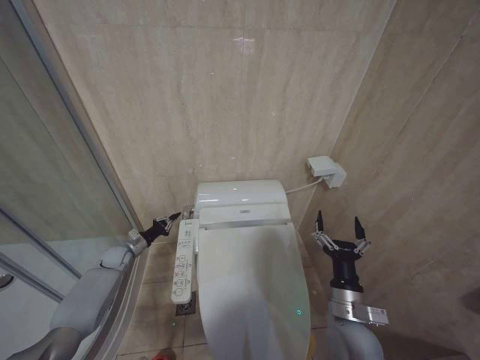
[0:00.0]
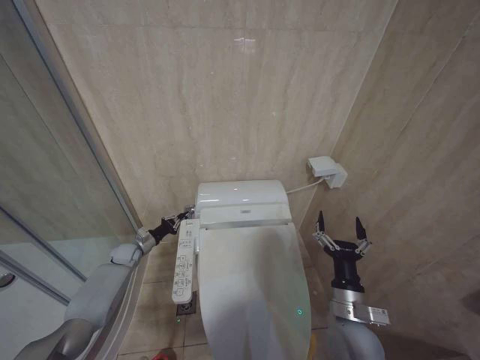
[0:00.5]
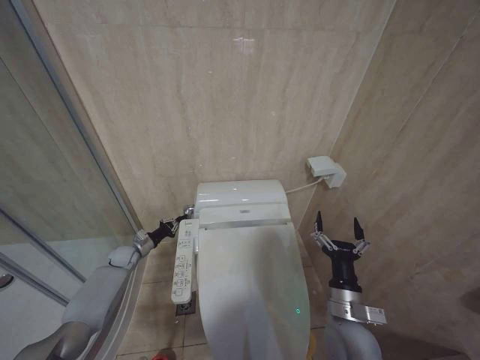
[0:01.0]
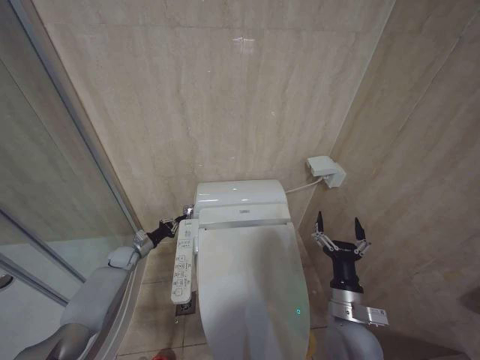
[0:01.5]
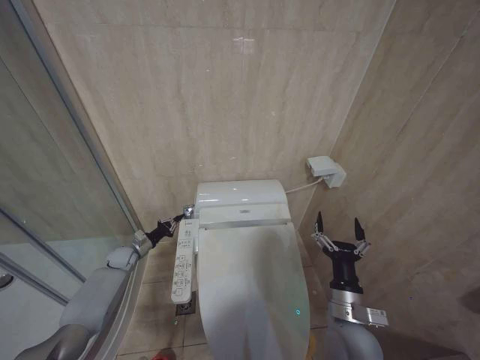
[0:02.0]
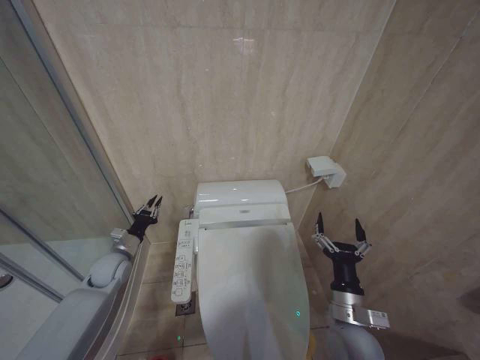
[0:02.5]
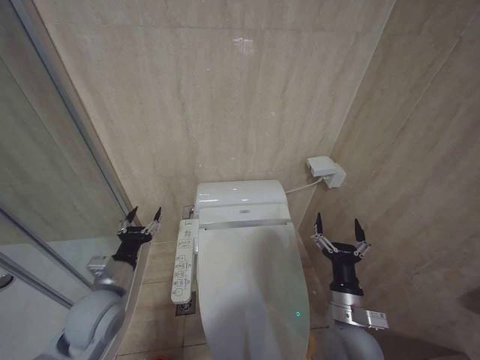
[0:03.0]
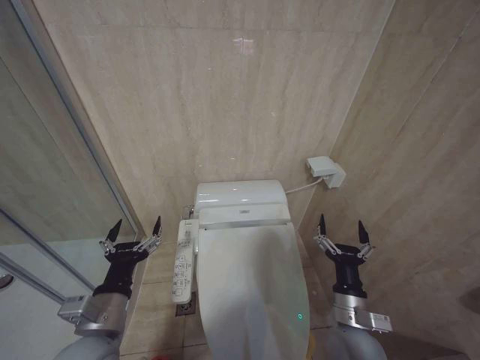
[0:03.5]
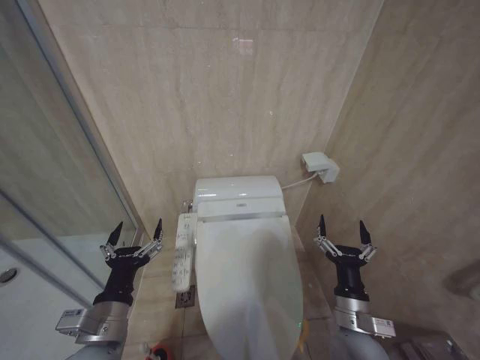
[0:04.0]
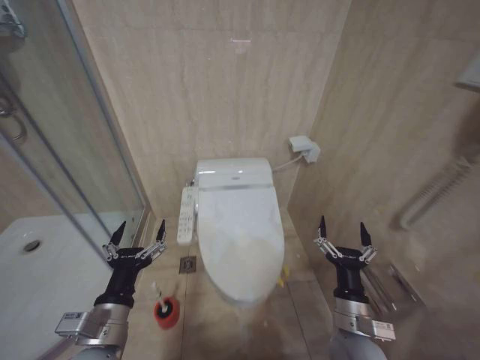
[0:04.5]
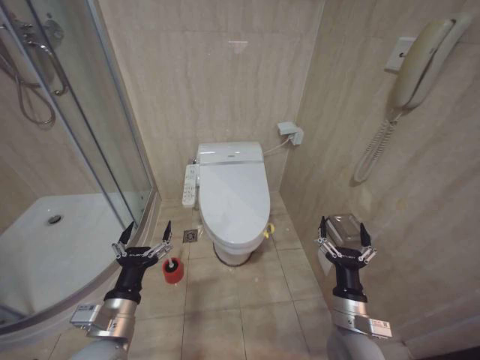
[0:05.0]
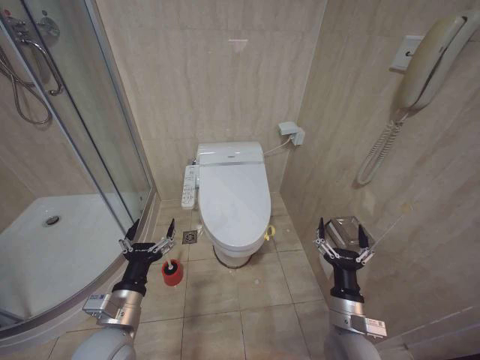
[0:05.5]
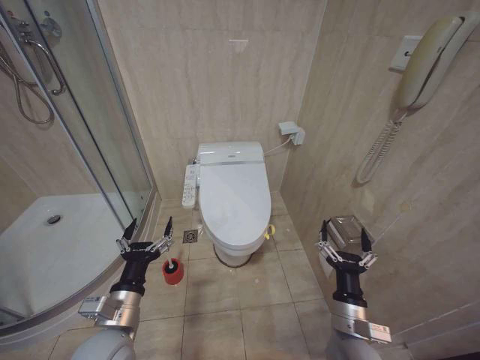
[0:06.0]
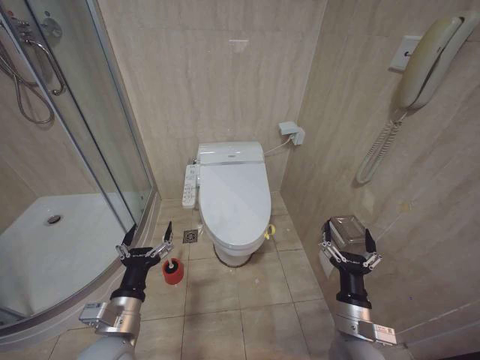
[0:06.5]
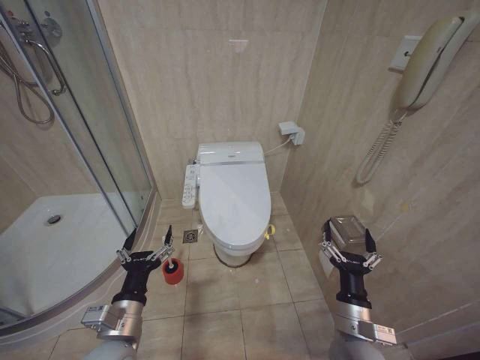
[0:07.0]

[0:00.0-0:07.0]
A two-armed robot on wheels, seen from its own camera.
Task of the whole recording: Open the toilet lid, clean the toilet bowl with a toilet brush, close the toilet lid, and flush.
0:00.0 to 0:02.0: The grippers move only a little.
0:02.0 to 0:03.5: The left gripper travels backward, upward and to the right by roughly 40 cm, and opens.
0:05.0 to 0:07.0: There are only small adjustments of the grippers.

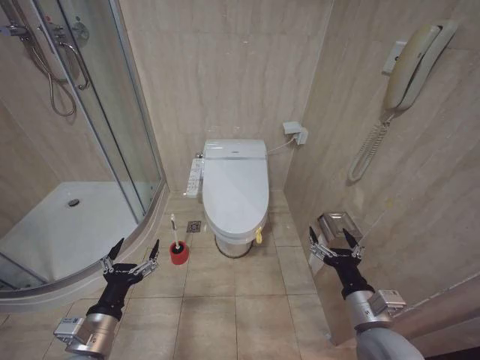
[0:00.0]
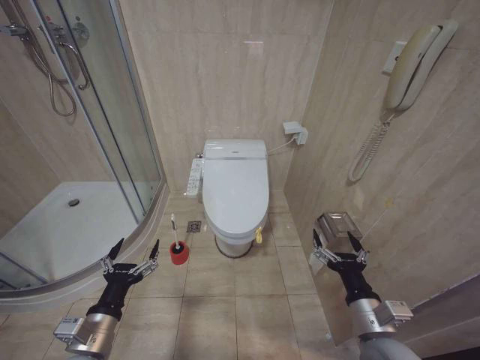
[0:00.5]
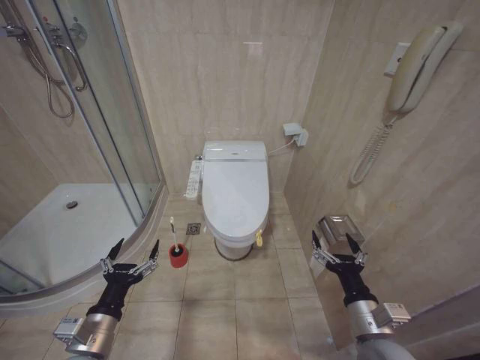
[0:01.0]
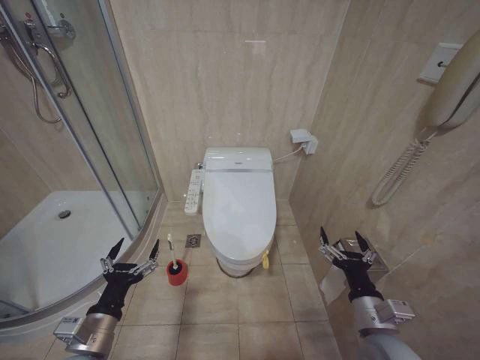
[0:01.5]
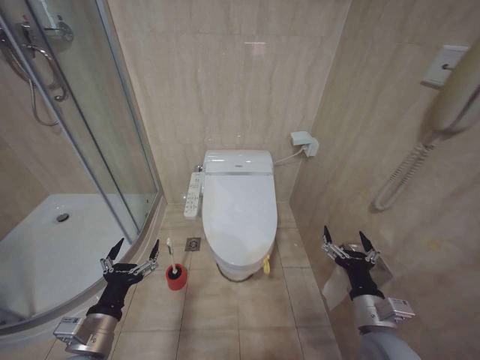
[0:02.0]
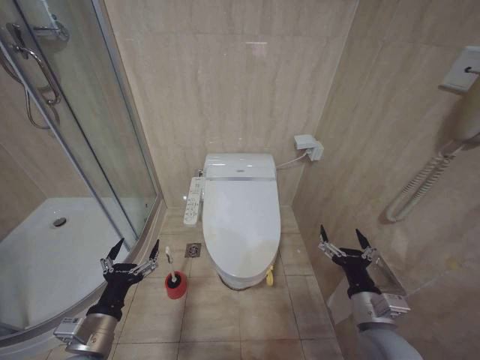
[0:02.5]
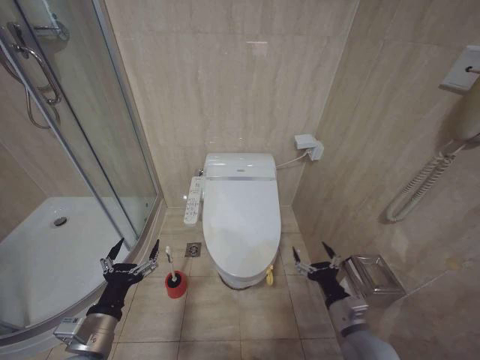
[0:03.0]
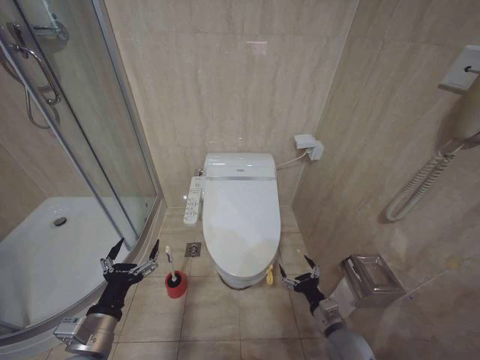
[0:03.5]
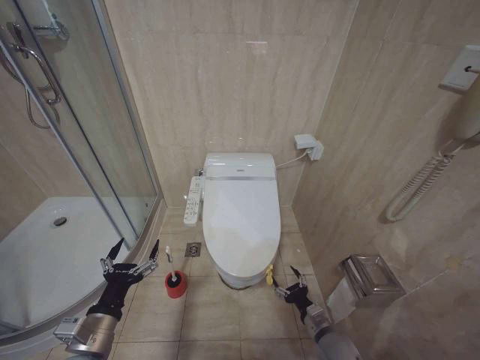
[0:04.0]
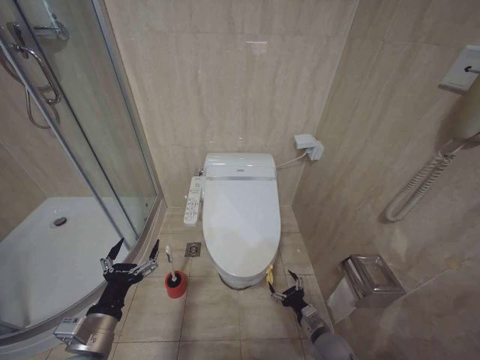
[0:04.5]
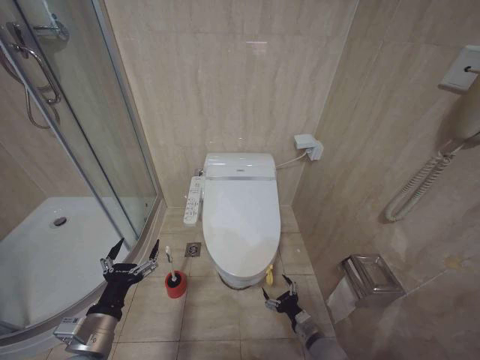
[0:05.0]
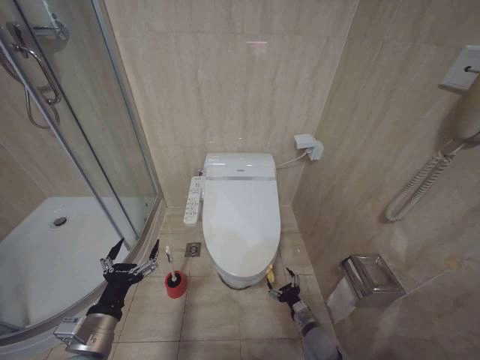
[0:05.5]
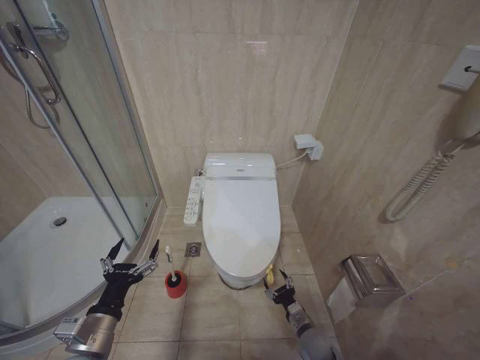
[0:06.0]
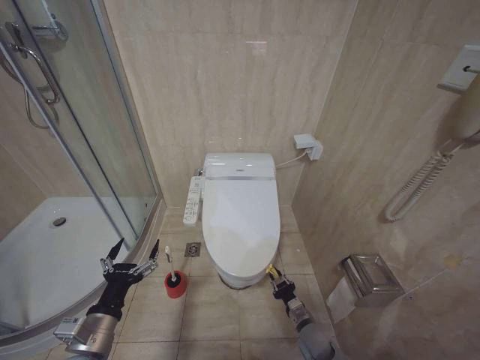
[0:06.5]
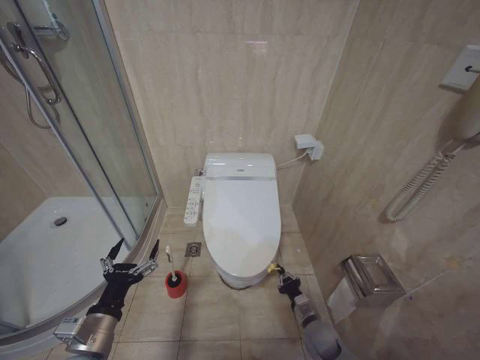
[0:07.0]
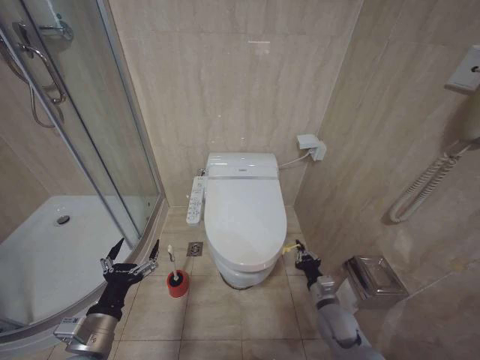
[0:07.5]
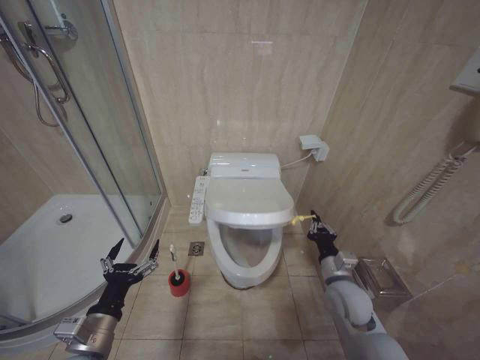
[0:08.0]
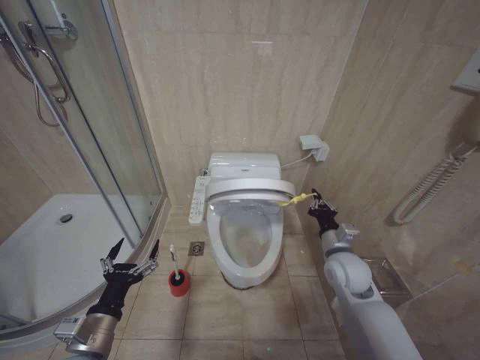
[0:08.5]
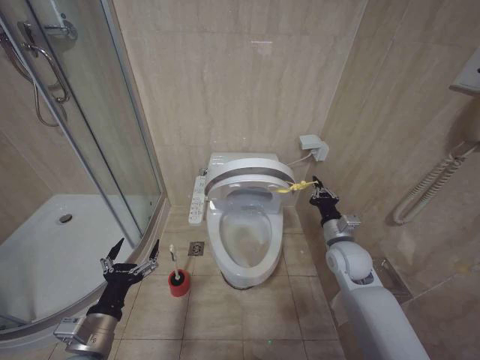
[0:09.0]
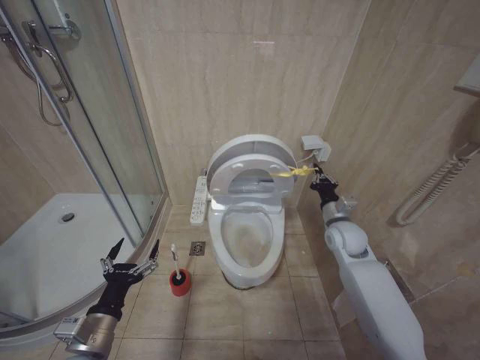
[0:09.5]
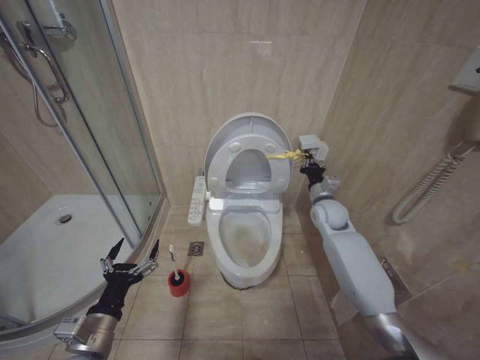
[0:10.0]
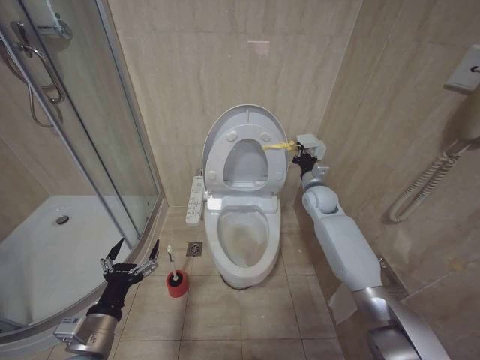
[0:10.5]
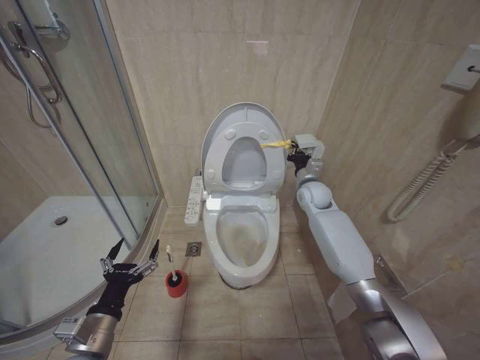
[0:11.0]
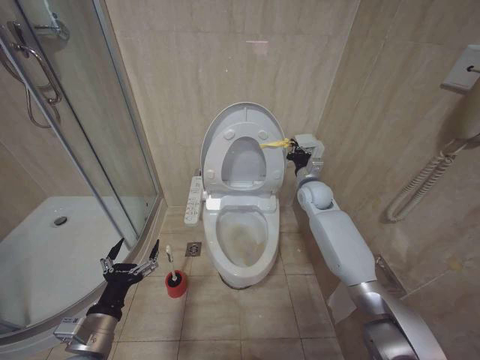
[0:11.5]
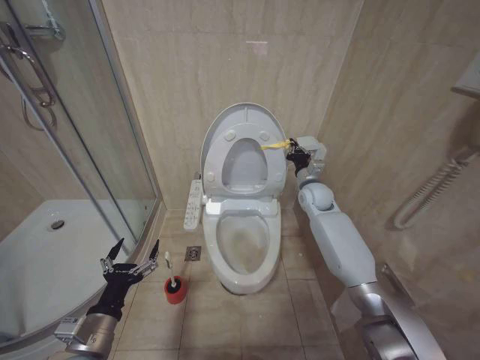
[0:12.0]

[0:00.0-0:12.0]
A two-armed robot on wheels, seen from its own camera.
Task of the whole recording: Open the toilet lid, clean the toilet bowl with a toilet brush, close the toilet lid, and flush.
0:02.0 to 0:04.0: The right gripper shifts some 15 cm downward.
0:04.0 to 0:06.0: The right gripper goes roughly 5 cm downward.
0:06.0 to 0:08.0: The right gripper moves upward, about 20 cm, and closes.
0:08.0 to 0:10.0: The right gripper shifts some 25 cm forward and upward.
0:10.0 to 0:12.0: The right gripper shifts about 5 cm forward.

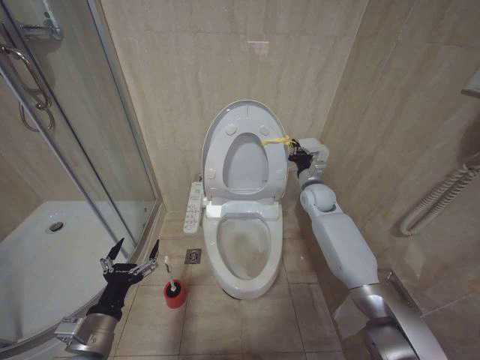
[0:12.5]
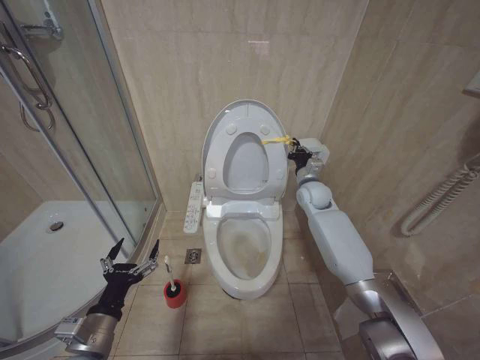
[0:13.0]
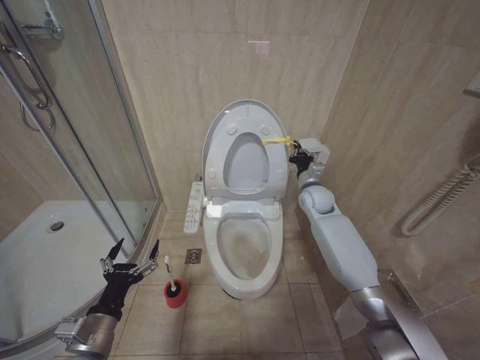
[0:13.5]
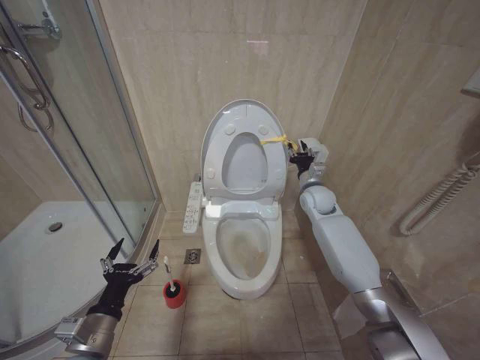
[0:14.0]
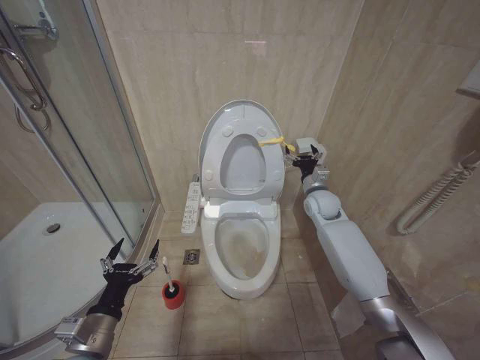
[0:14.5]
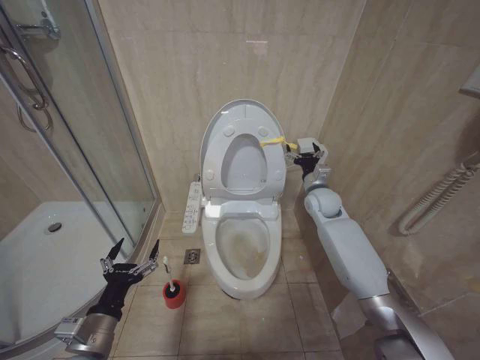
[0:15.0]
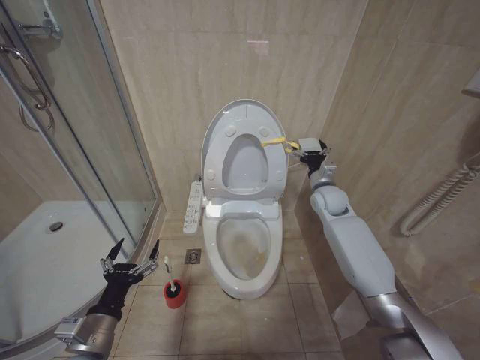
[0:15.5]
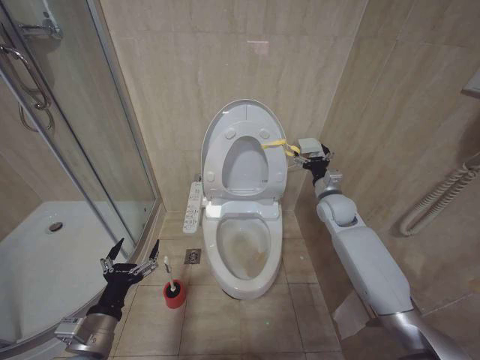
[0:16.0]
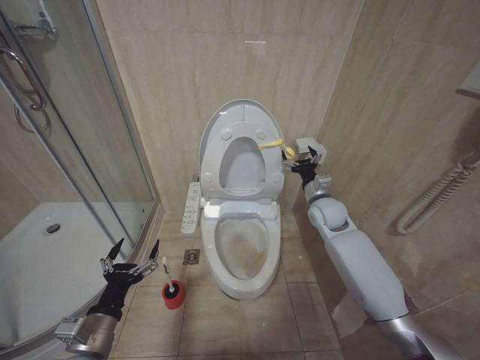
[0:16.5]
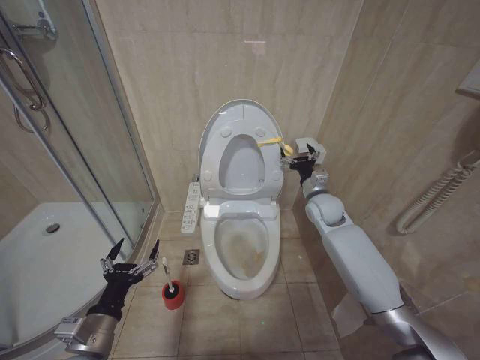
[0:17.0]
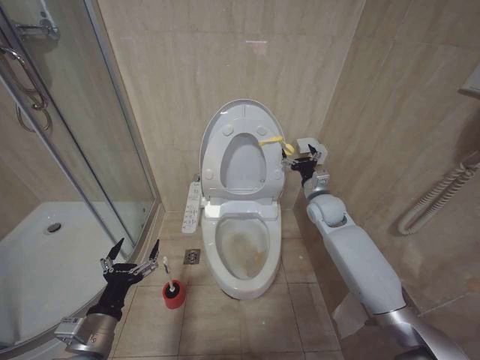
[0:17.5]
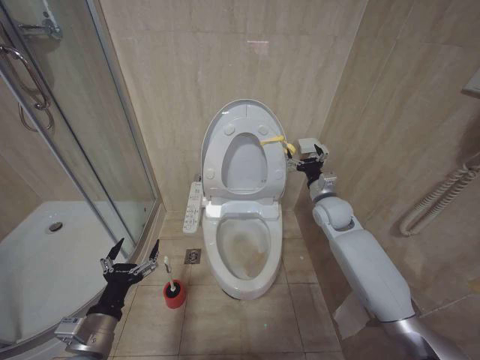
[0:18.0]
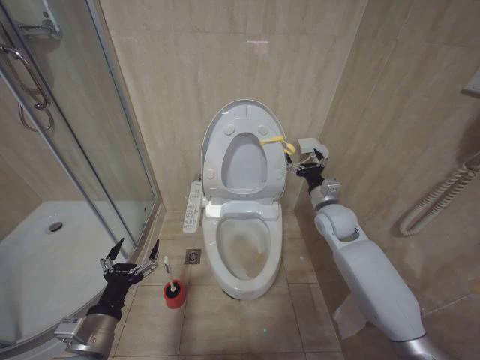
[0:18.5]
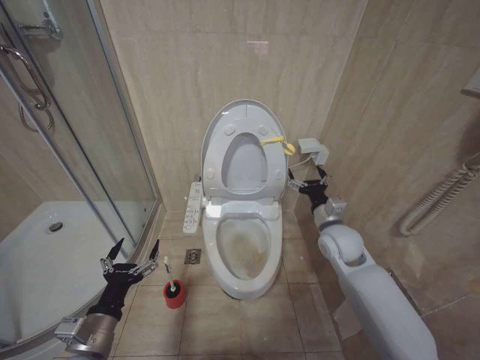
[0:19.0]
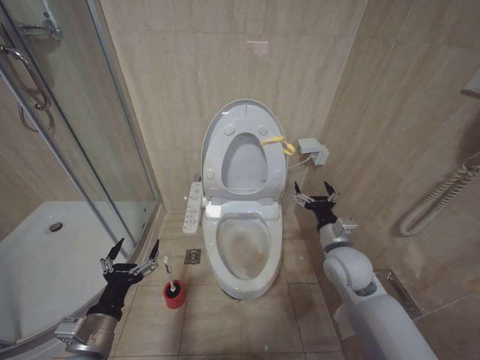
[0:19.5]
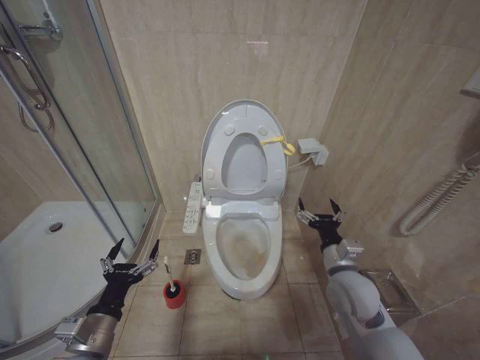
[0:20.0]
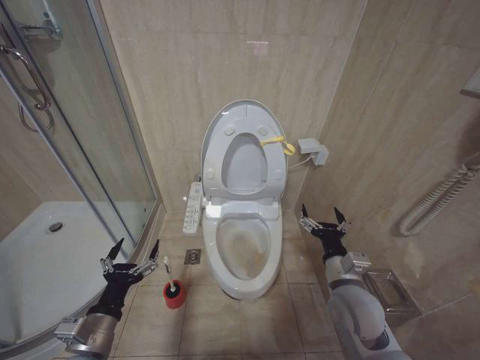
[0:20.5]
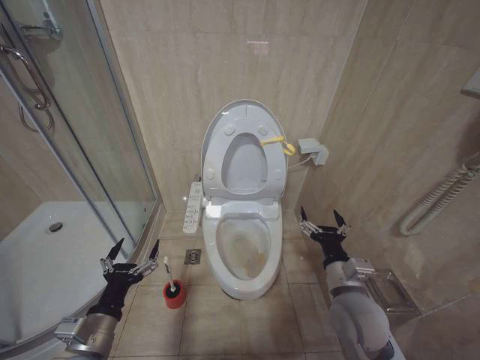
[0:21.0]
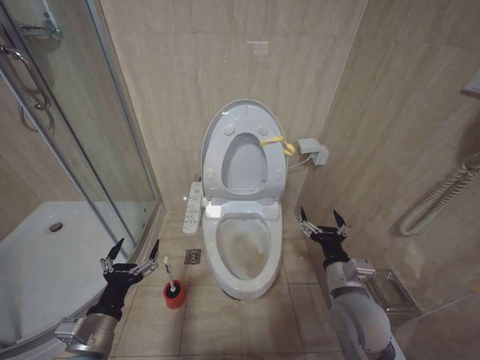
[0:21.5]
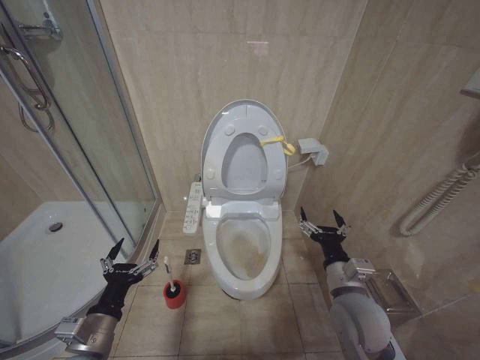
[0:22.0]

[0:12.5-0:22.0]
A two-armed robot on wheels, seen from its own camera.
Task of the whole recording: Open the toilet lid, clean the toilet bowl with a toilet brush, close the toilet lid, and flush.
0:12.5 to 0:14.5: The right gripper opens its fingers.
0:14.5 to 0:18.0: The grippers stay close to where they were, moving slightly.
0:18.0 to 0:20.0: The right gripper goes about 20 cm backward.
0:20.0 to 0:22.0: The right gripper travels backward by approximately 5 cm.
